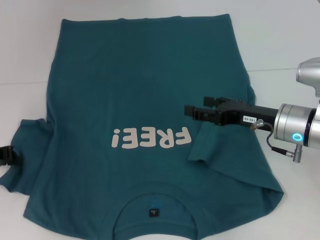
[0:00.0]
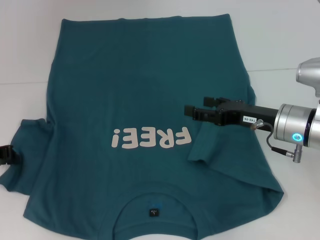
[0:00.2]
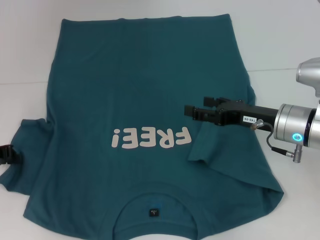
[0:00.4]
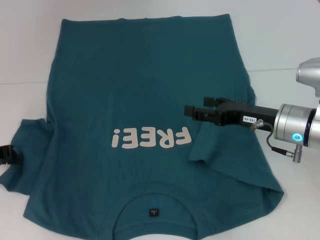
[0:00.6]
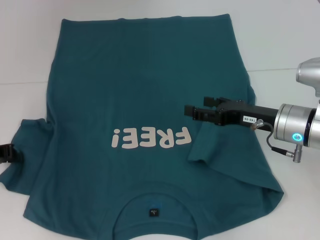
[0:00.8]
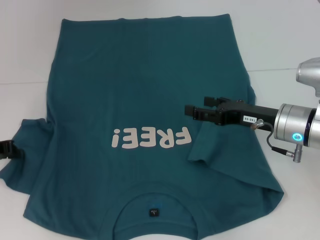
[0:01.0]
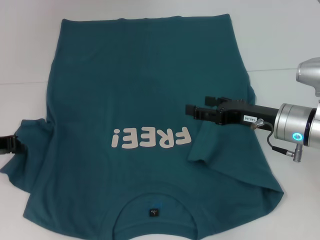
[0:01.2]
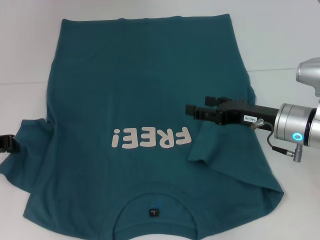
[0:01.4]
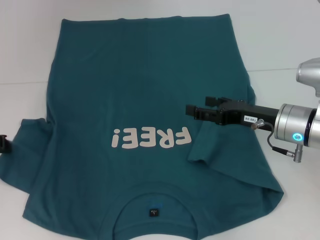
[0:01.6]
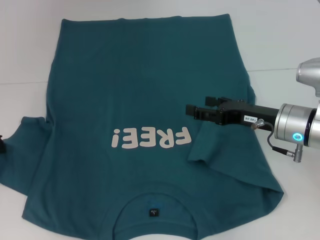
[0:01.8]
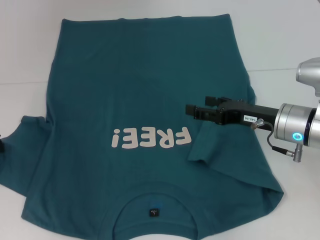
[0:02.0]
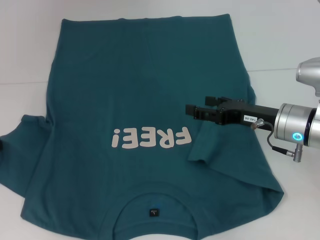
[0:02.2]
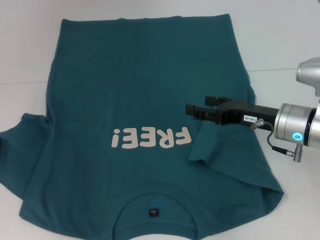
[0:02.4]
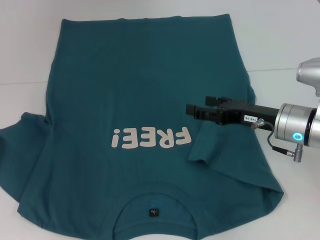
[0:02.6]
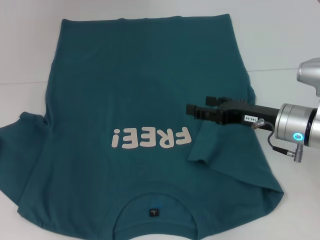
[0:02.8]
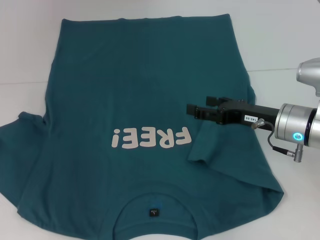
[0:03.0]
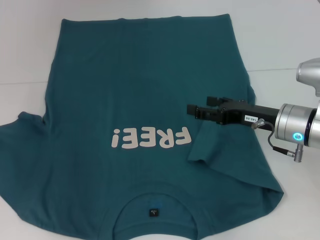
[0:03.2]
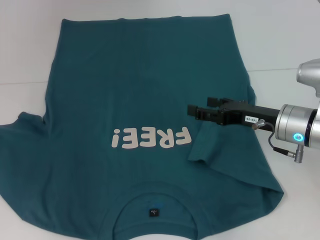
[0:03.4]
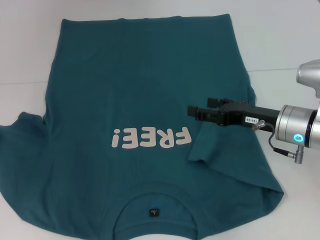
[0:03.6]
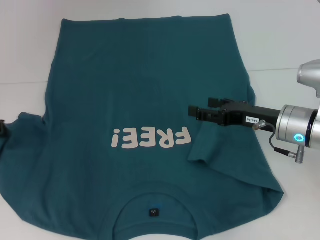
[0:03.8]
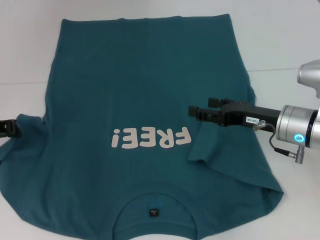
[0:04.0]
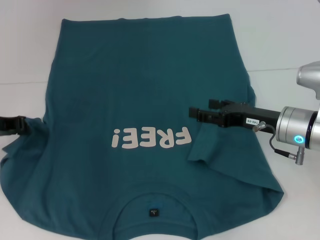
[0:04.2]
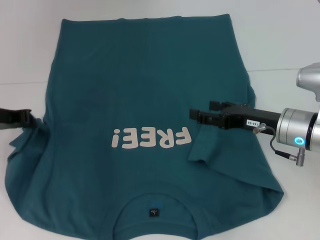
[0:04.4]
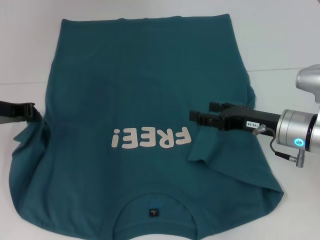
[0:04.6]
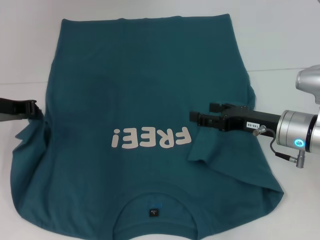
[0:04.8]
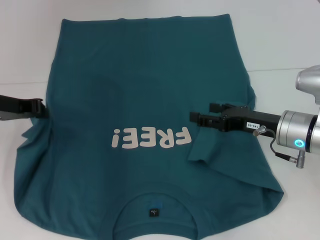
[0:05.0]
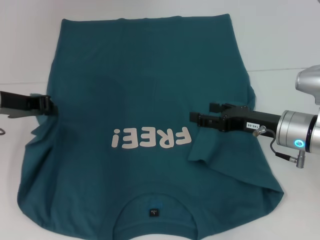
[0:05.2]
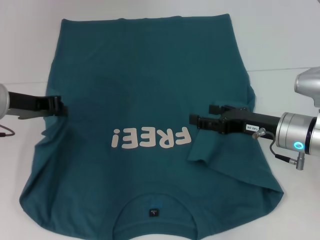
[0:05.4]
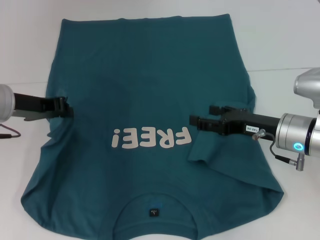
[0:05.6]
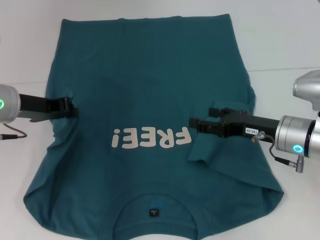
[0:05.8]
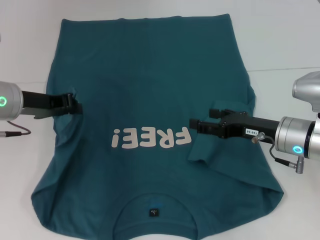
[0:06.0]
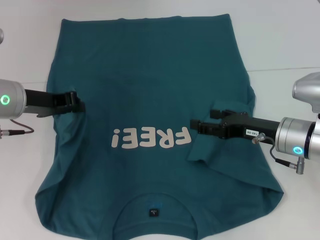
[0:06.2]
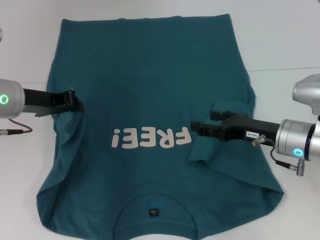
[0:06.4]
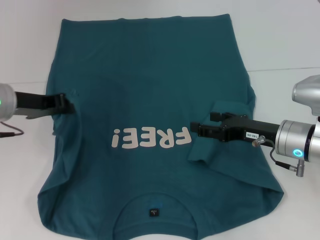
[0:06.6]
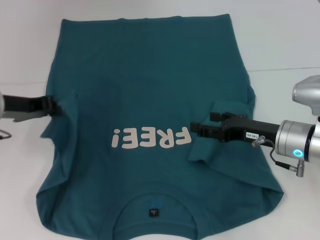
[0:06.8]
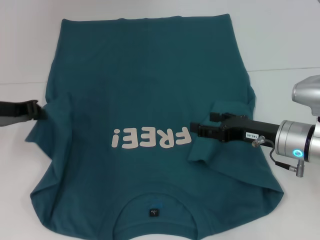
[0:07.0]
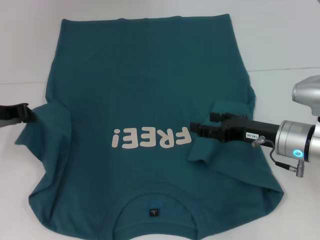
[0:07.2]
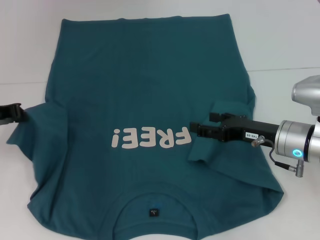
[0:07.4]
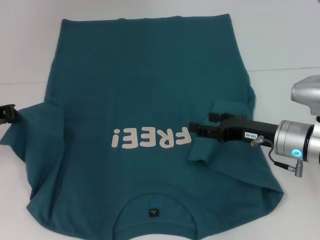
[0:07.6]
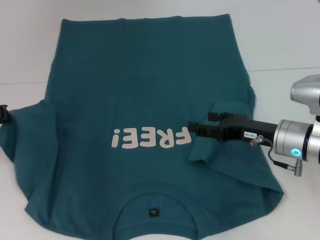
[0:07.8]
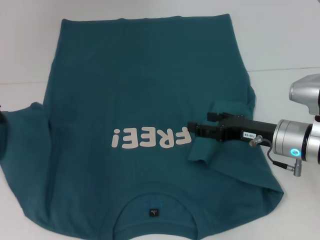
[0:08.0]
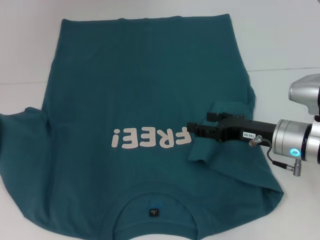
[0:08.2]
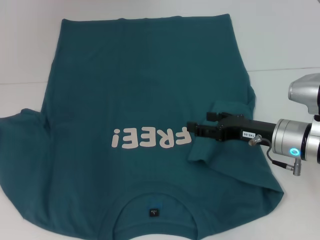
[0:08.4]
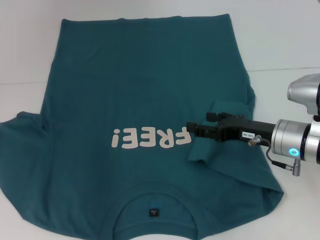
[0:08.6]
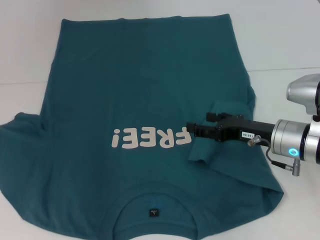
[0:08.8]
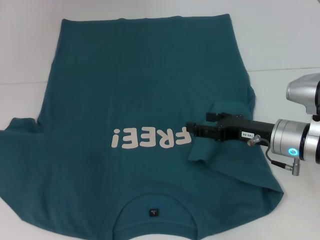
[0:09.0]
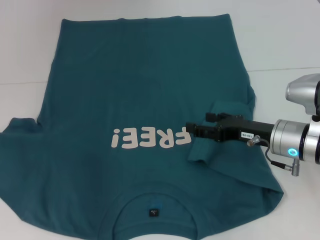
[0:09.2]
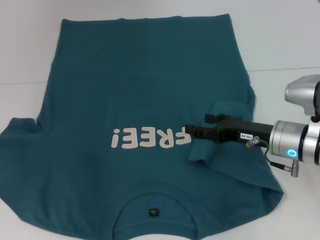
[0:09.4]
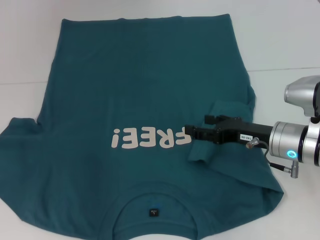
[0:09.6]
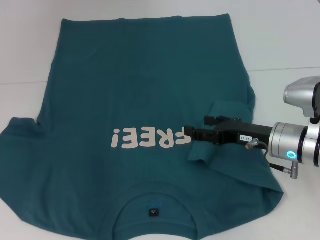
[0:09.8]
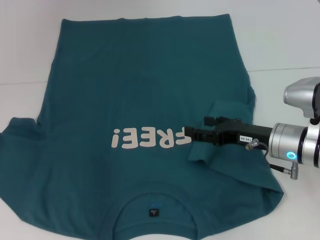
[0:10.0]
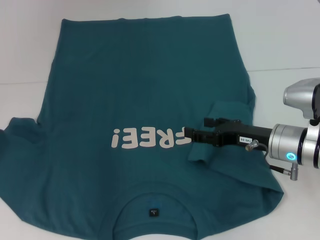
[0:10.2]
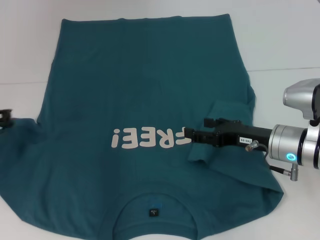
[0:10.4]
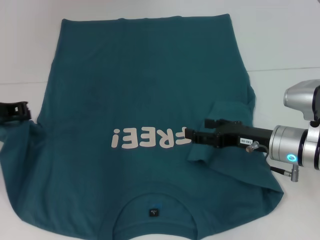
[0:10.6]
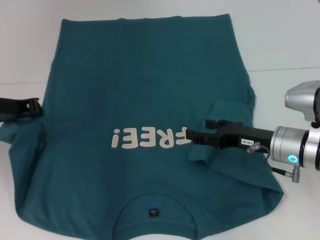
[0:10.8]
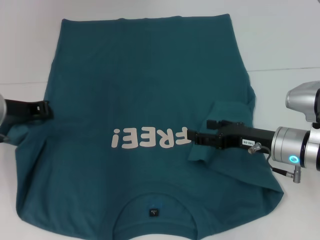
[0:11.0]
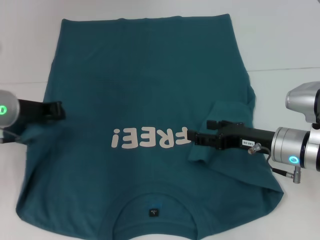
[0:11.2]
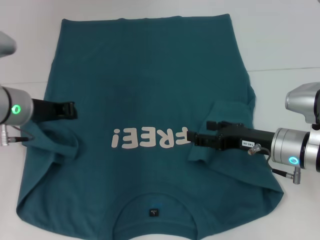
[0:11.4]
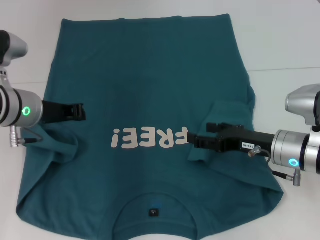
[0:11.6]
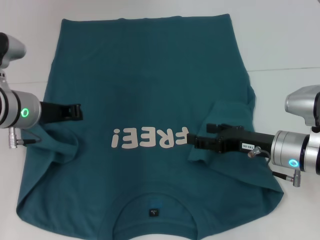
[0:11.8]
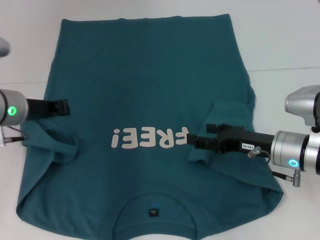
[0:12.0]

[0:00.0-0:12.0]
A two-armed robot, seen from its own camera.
0:00.0 to 0:03.0: The grippers move only a little.
0:03.0 to 0:04.4: The left gripper travels to the right by some 5 cm.
0:04.4 to 0:06.0: The left gripper is displaced to the right by some 5 cm.
0:06.0 to 0:07.6: The left gripper is displaced to the left by approximately 5 cm.
0:07.6 to 0:10.4: The grippers make only small movements.
0:10.4 to 0:12.0: The left gripper heads to the right, covering about 5 cm.

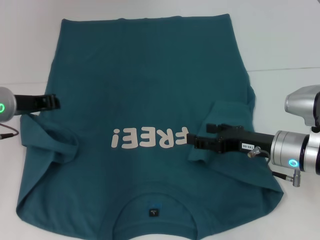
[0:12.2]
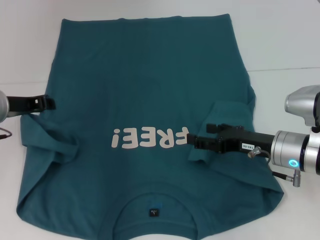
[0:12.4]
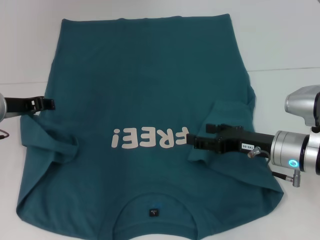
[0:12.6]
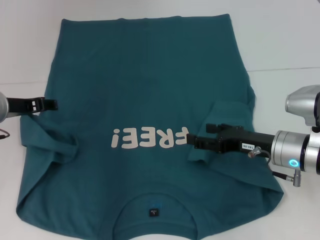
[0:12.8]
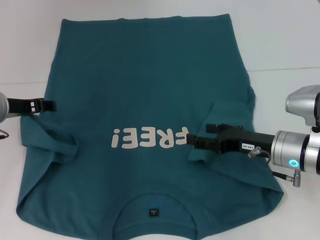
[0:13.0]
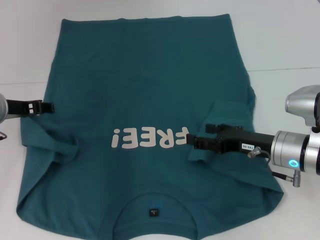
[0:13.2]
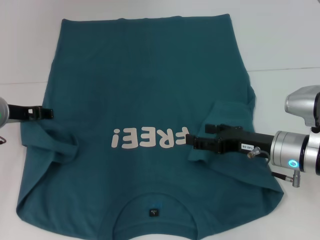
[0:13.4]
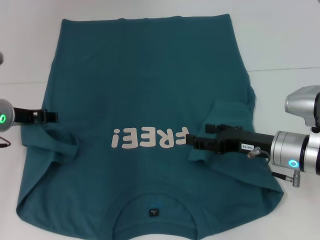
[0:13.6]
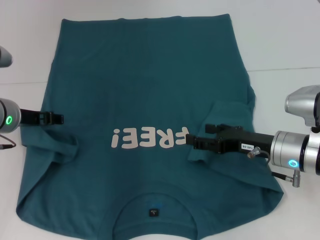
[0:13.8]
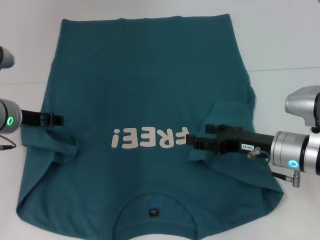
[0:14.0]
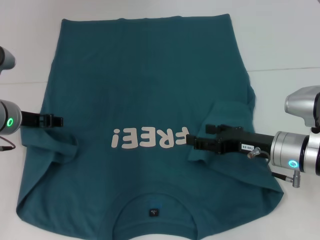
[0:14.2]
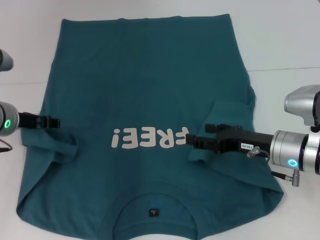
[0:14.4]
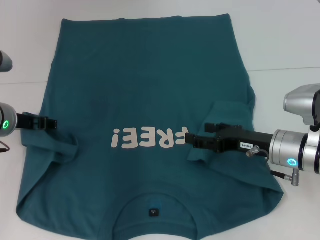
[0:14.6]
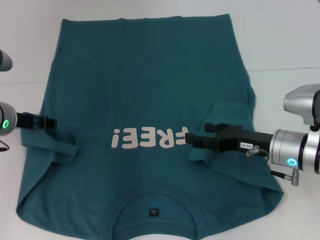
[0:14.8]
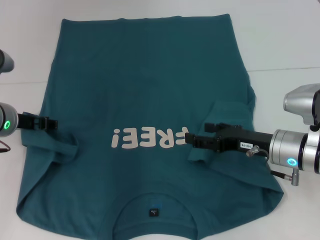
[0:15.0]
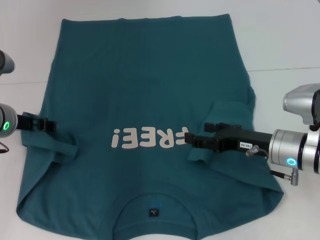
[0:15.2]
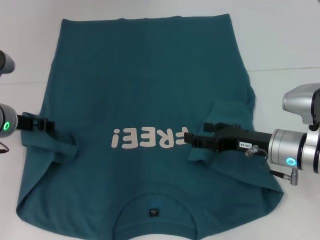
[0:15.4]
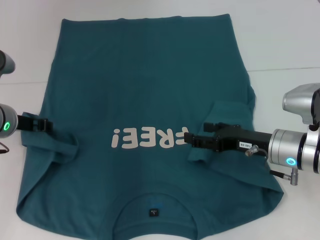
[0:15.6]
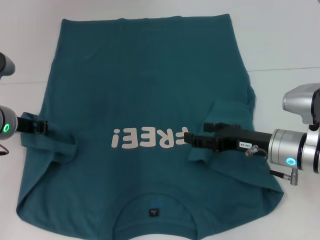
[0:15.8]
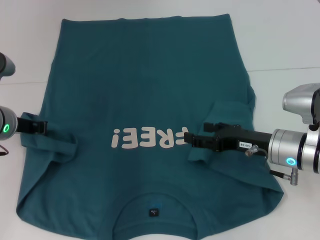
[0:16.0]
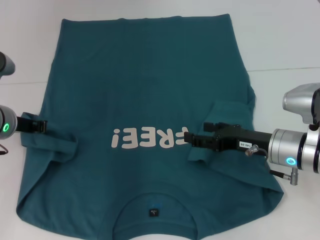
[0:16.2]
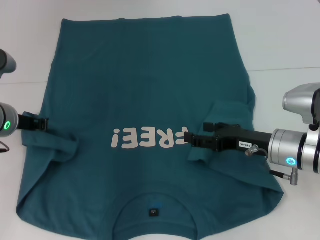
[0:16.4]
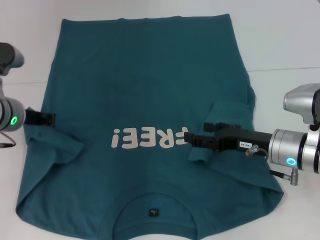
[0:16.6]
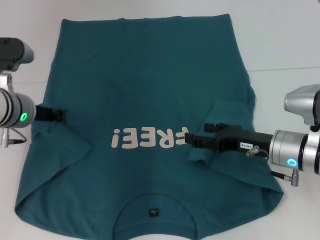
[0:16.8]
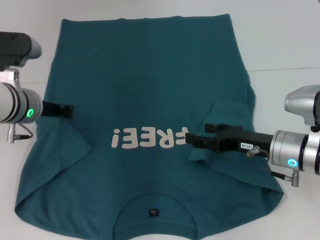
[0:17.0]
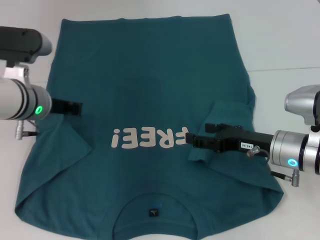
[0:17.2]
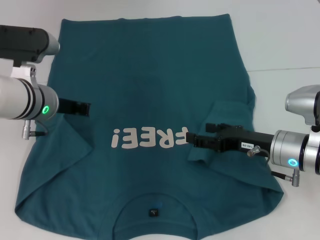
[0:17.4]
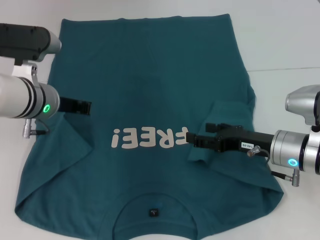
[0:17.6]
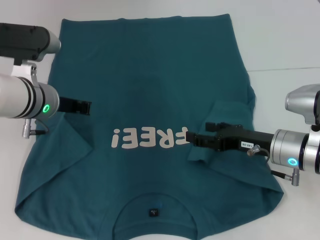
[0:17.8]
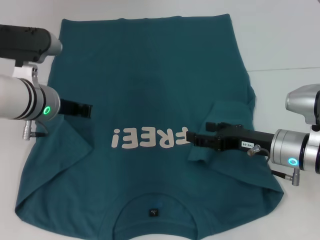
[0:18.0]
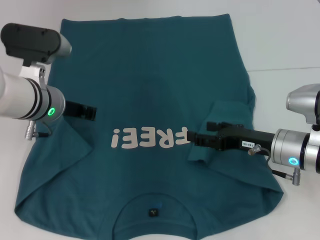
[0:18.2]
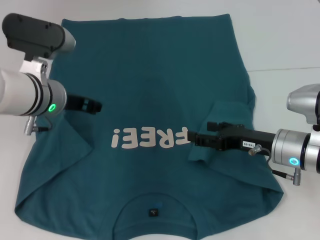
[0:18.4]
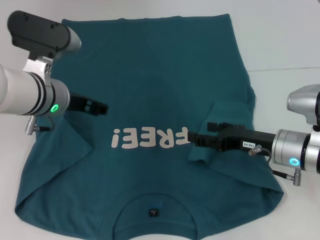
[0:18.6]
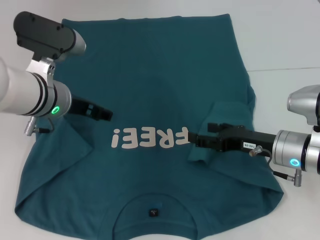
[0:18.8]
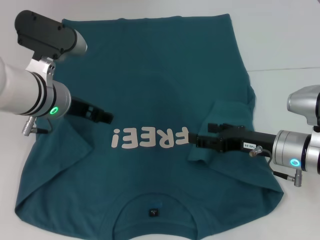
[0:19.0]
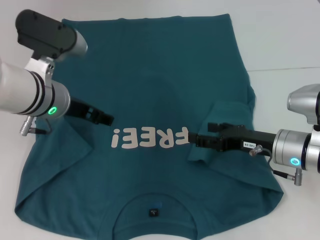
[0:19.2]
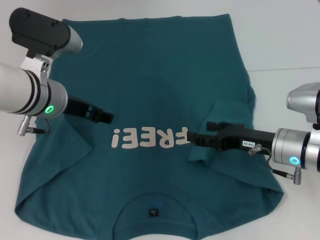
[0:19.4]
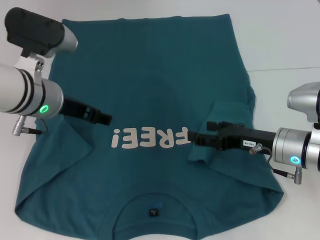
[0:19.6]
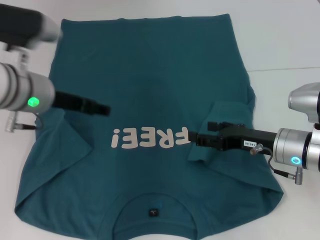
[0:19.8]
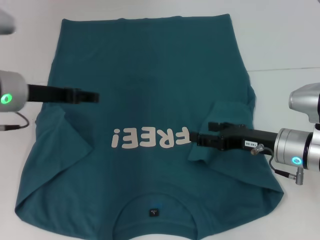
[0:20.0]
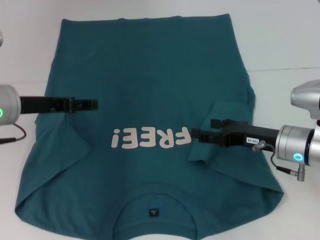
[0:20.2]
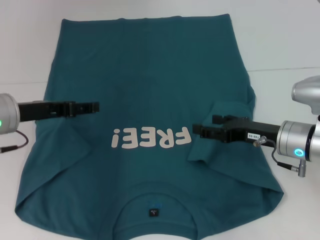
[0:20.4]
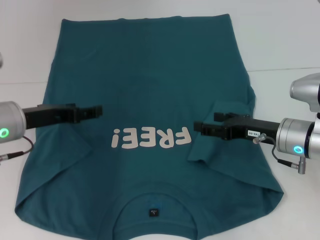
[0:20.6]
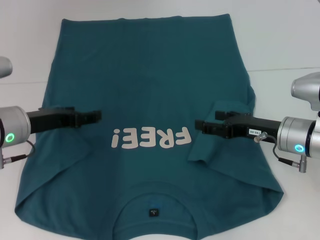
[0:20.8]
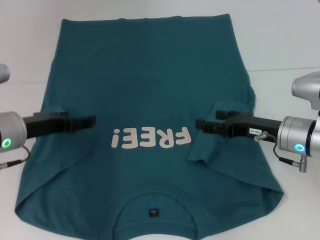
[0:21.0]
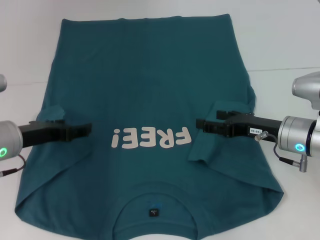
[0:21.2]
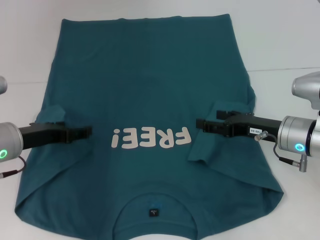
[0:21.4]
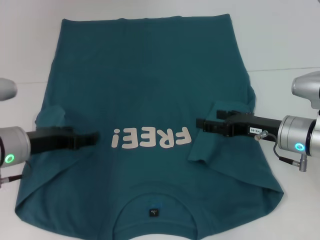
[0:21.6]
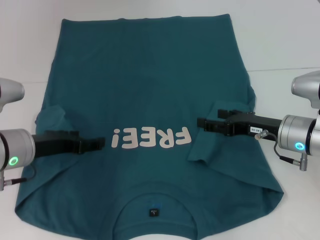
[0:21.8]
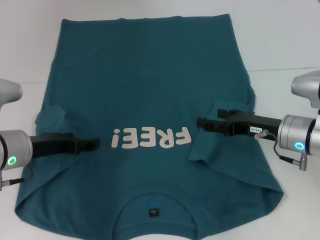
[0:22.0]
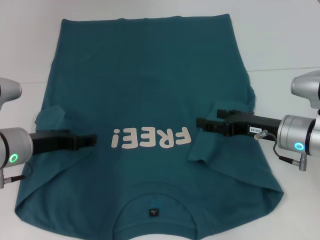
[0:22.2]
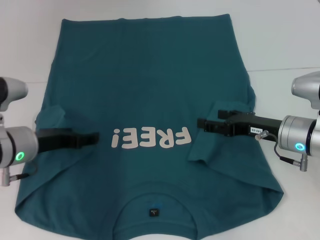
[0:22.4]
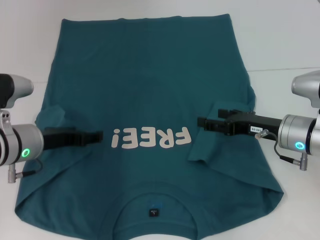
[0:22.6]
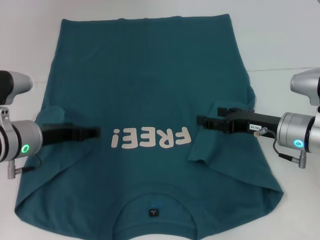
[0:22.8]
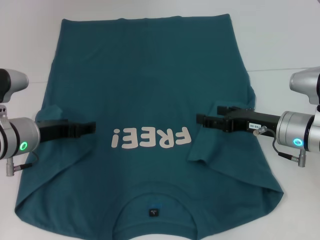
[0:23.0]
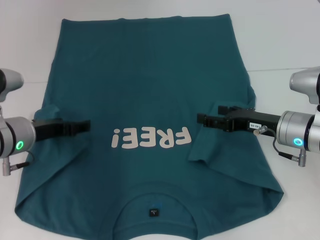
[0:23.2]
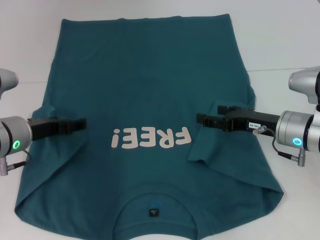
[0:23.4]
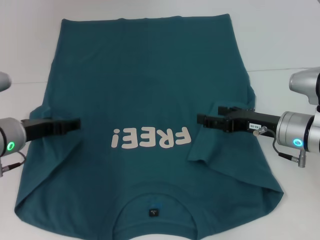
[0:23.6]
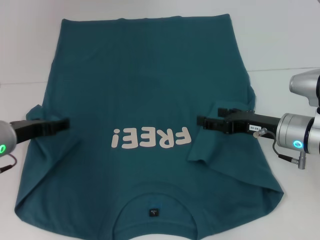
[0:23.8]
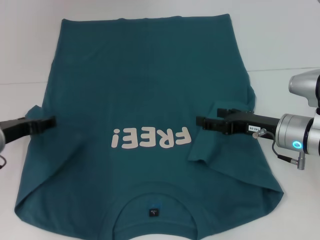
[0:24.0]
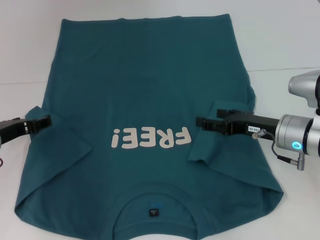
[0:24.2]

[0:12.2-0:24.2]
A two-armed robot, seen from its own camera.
Step, 0:12.2 to 0:19.6: Fold the bottom left sleeve with your left hand.
0:12.2 to 0:13.8: The left gripper opens.
0:13.8 to 0:15.2: The grippers stay close to where they were, moving slightly.
0:15.2 to 0:16.6: The left gripper closes its fingers.
0:16.6 to 0:18.2: The left gripper heads to the right, covering about 5 cm.
0:18.2 to 0:19.8: The left gripper opens up.
0:19.8 to 0:21.2: The left gripper travels downward and to the left by about 10 cm.
0:21.2 to 0:22.6: The grippers stay close to where they were, moving slightly.
0:22.6 to 0:24.2: The left gripper goes about 5 cm to the left.
